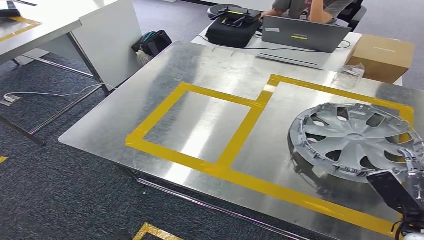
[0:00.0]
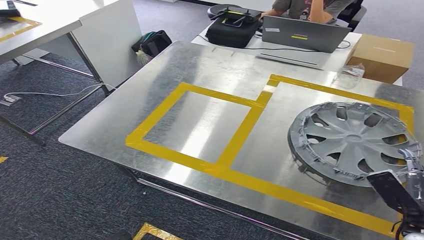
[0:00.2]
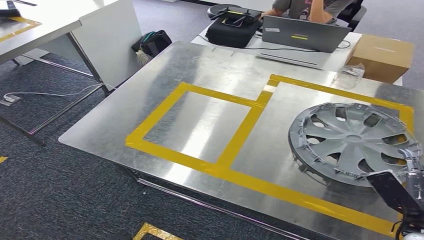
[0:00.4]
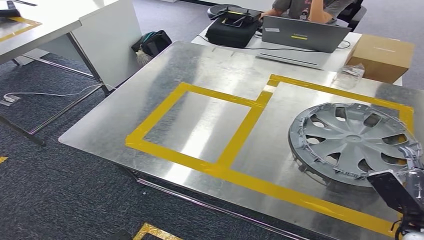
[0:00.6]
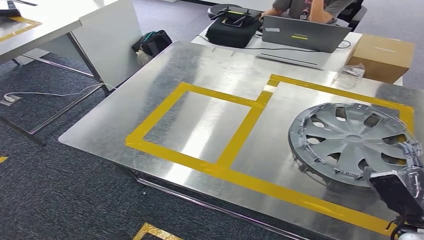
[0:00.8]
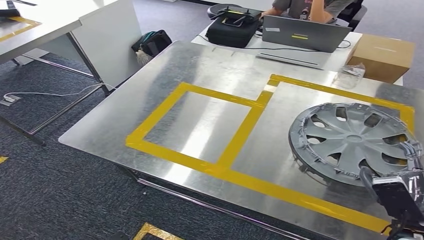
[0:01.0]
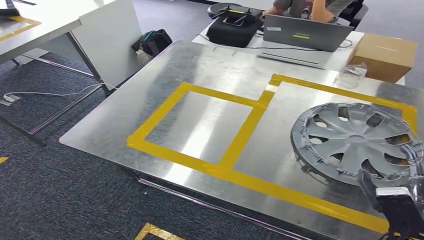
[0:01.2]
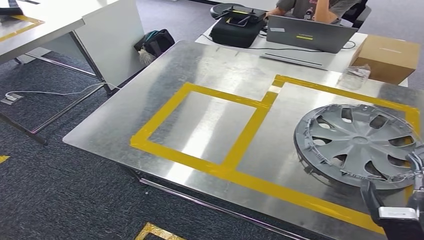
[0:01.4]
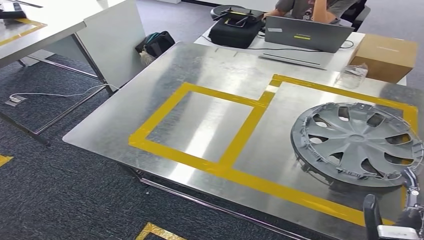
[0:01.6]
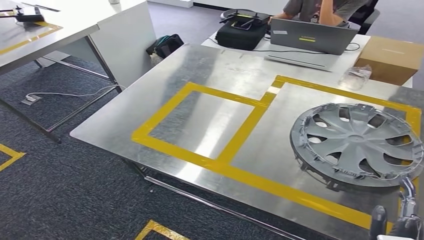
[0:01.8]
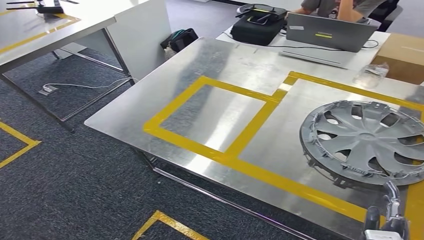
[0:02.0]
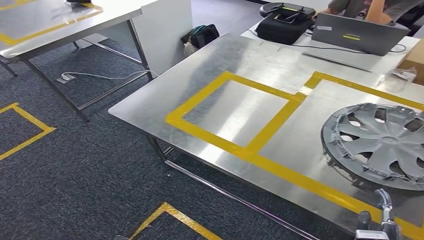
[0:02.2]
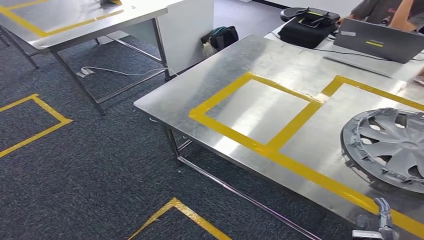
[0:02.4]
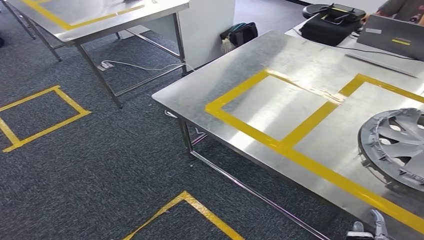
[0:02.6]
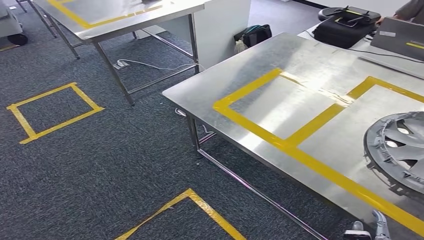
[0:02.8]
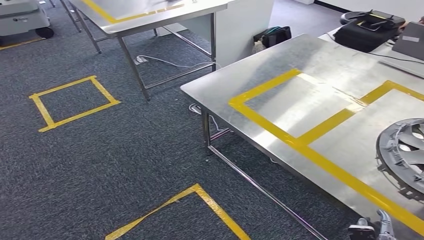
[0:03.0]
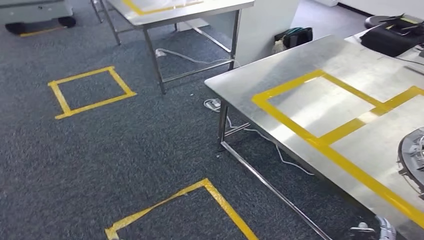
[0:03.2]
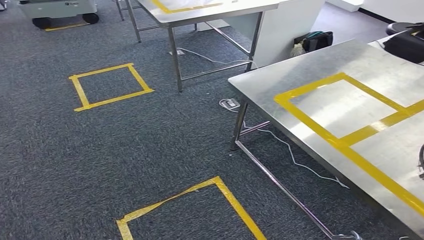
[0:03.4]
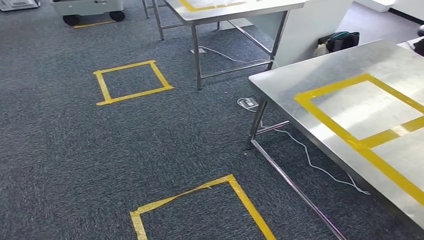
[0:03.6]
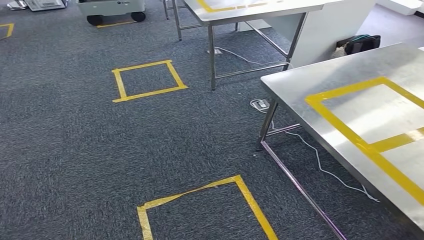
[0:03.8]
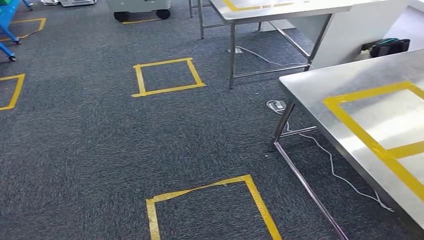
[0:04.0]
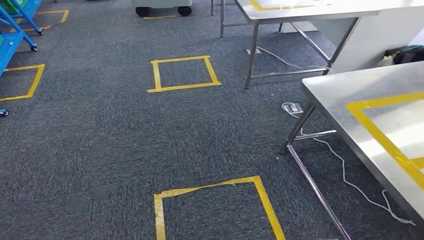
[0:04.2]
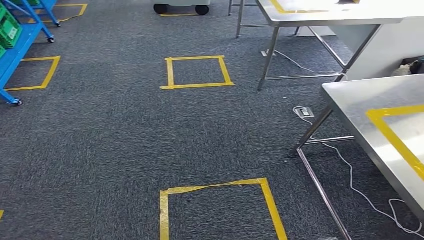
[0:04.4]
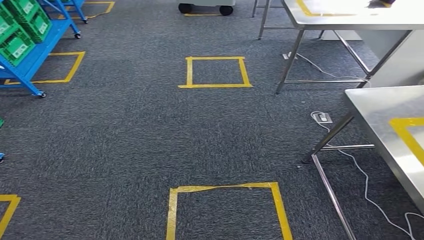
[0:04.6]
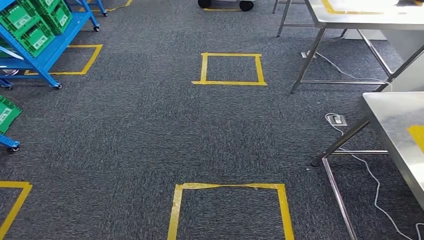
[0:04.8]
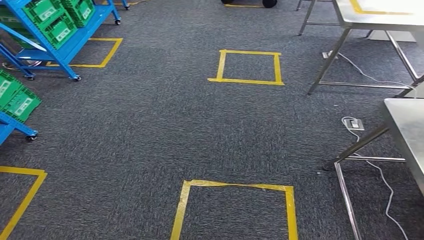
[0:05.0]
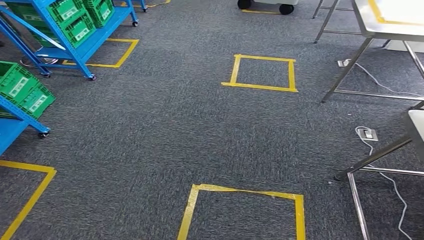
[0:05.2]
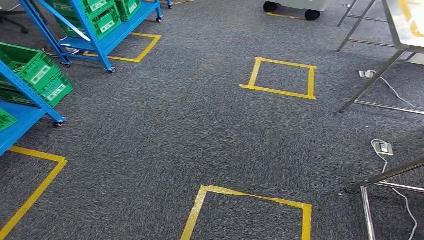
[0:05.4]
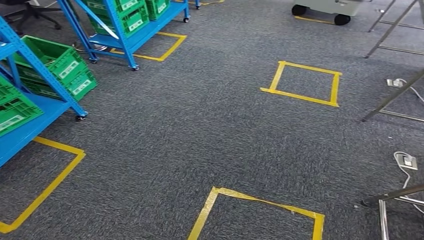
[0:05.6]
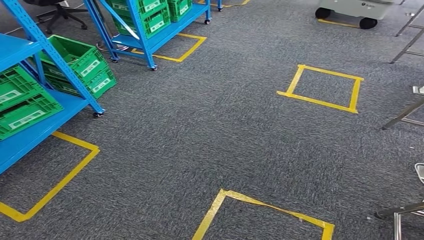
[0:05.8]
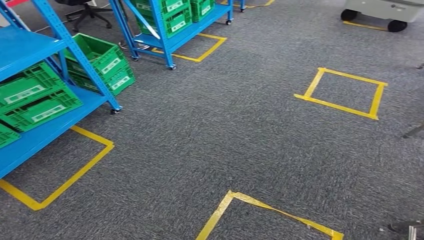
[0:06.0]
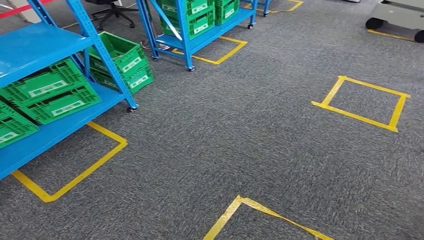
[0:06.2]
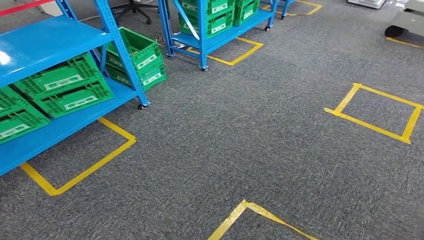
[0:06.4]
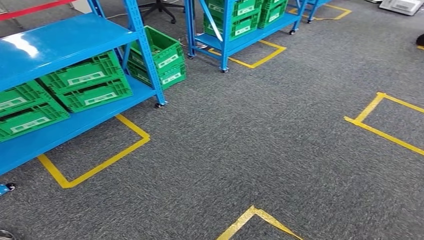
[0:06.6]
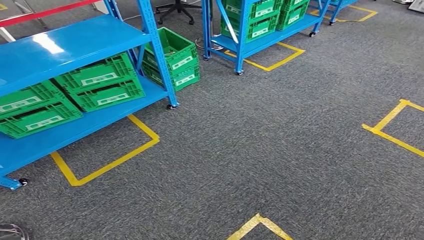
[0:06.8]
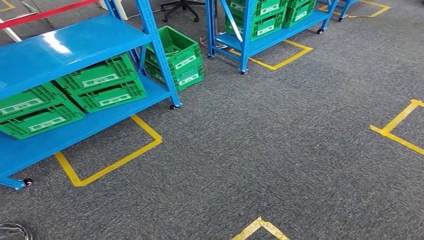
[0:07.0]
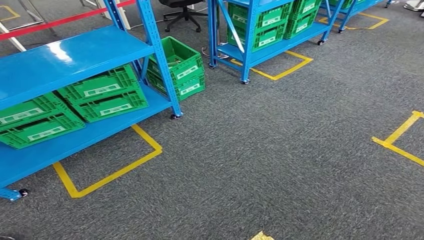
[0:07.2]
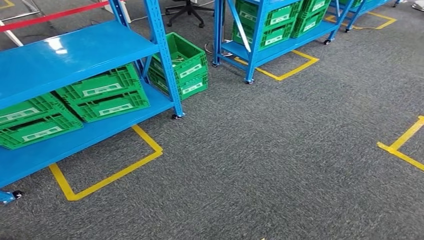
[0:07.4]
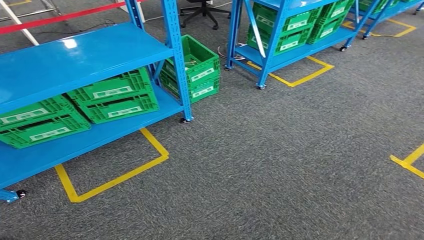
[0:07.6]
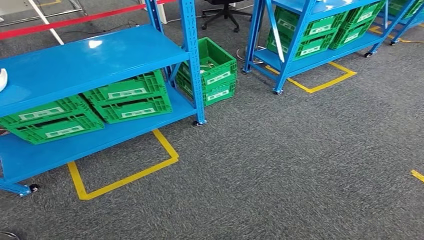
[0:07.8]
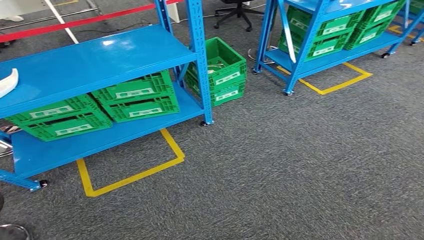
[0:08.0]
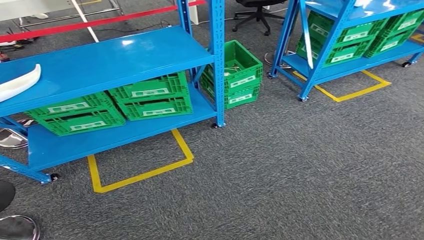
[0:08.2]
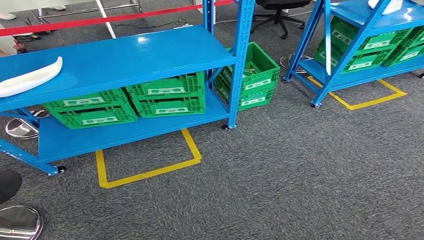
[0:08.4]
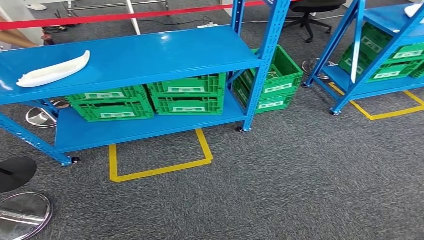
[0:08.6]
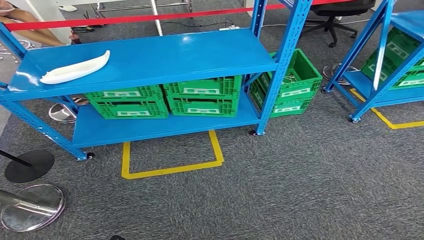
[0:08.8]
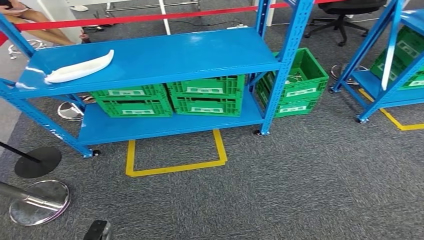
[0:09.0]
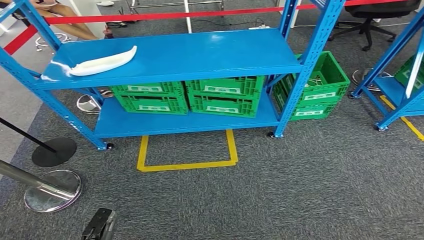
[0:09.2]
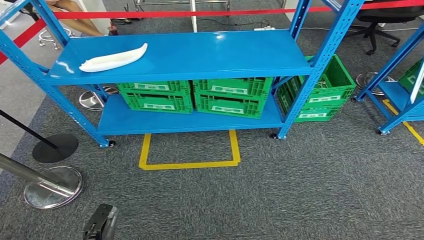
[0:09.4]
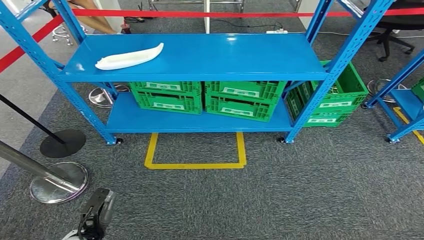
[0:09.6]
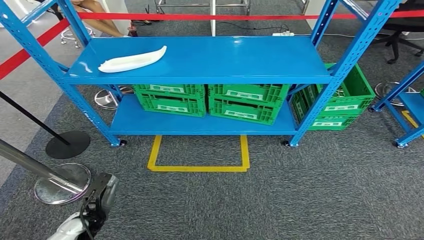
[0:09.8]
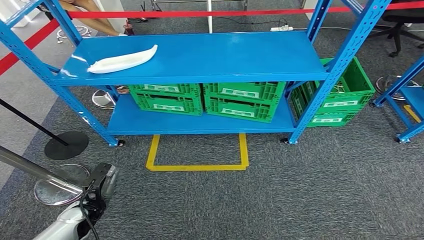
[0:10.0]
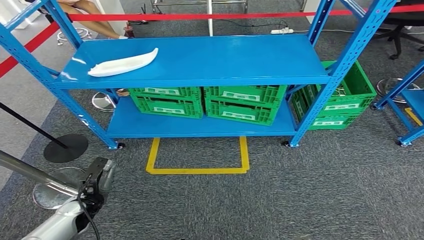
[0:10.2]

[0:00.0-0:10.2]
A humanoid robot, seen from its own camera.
Step, 0:02.2 to 0:10.2: Return to the initial position at the workbench.
0:00.0 to 0:01.4: The right hand goes some 10 cm to the left and backward.
